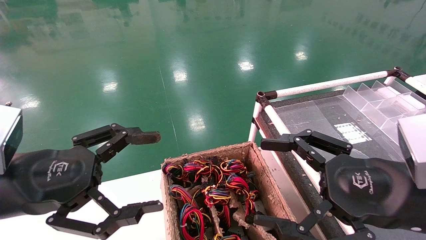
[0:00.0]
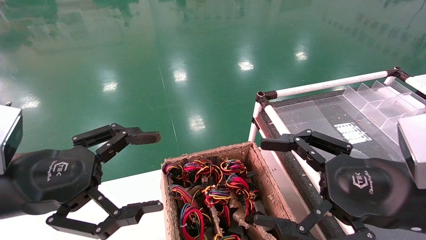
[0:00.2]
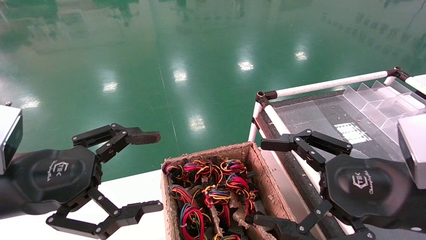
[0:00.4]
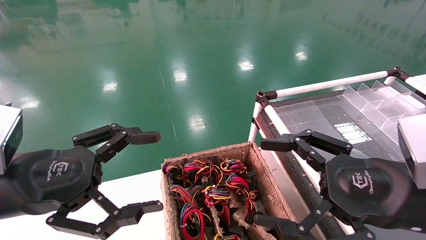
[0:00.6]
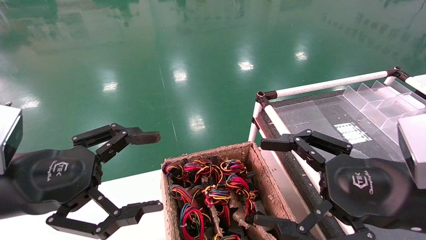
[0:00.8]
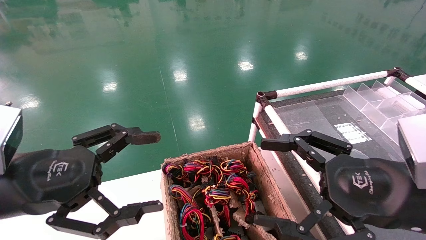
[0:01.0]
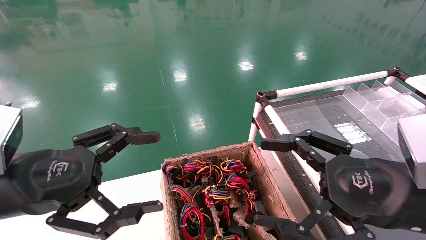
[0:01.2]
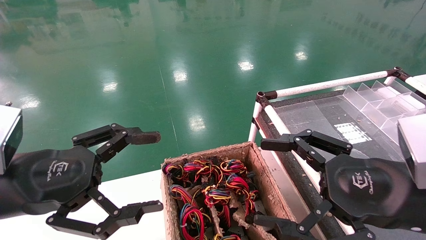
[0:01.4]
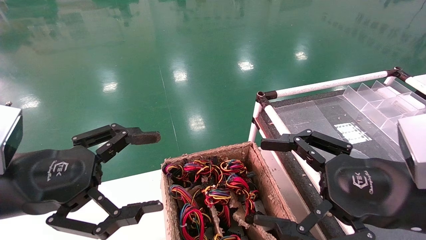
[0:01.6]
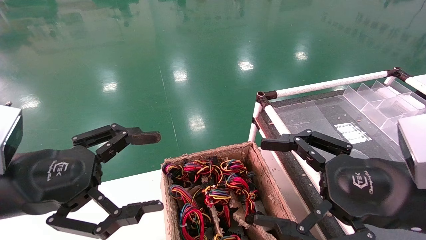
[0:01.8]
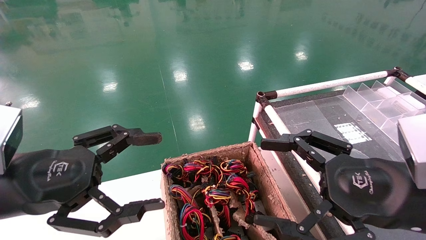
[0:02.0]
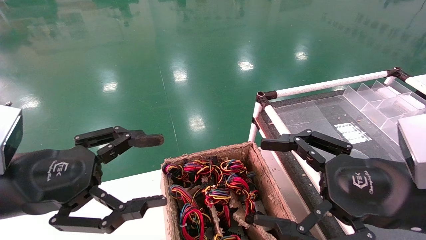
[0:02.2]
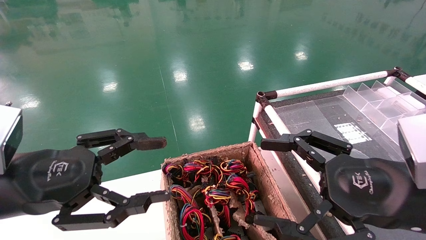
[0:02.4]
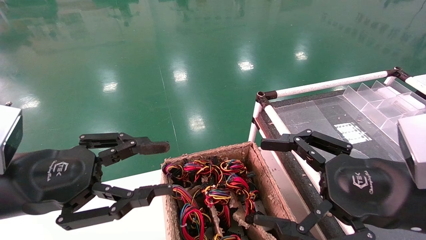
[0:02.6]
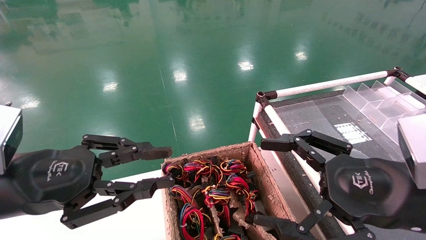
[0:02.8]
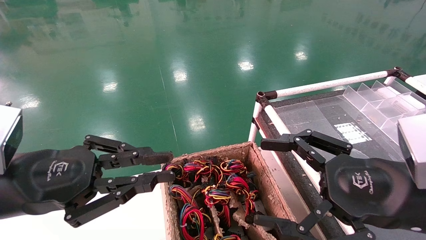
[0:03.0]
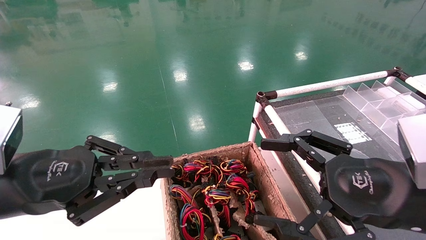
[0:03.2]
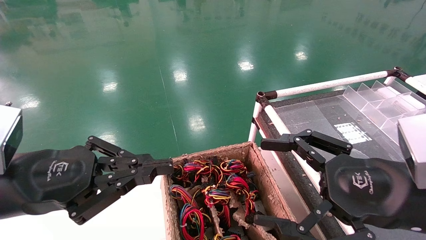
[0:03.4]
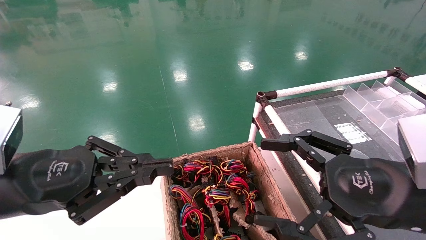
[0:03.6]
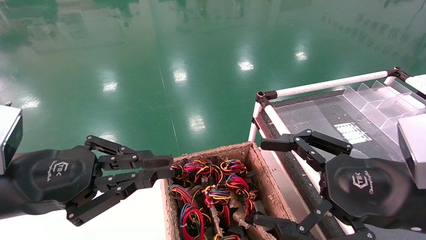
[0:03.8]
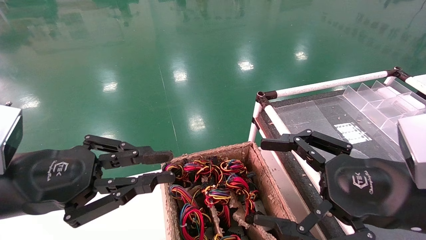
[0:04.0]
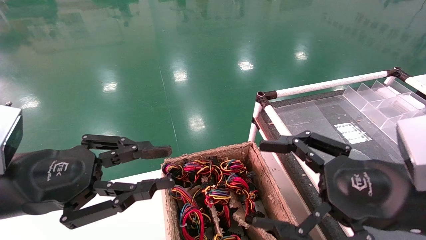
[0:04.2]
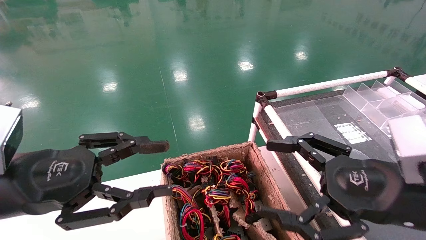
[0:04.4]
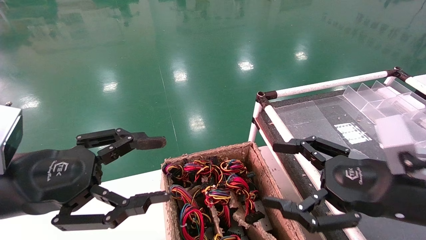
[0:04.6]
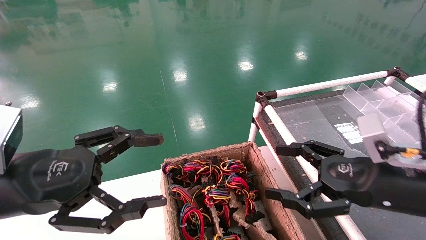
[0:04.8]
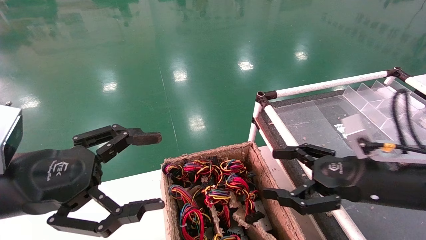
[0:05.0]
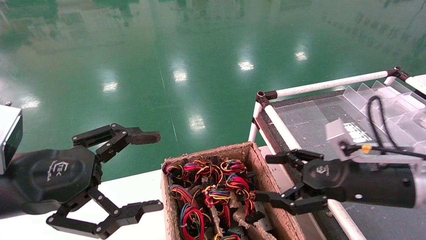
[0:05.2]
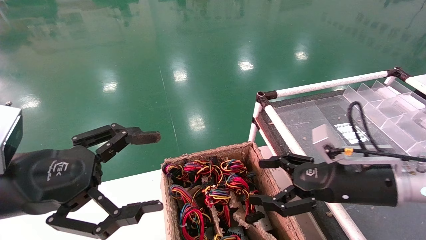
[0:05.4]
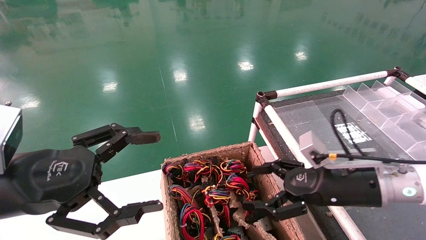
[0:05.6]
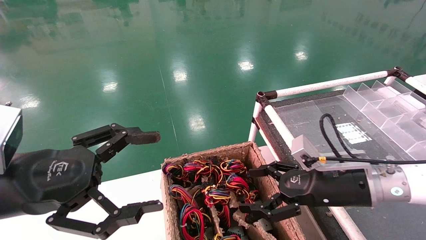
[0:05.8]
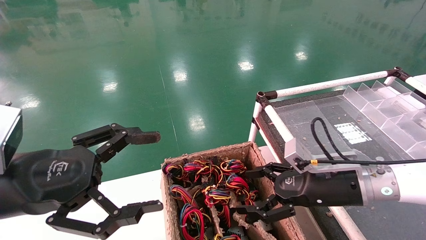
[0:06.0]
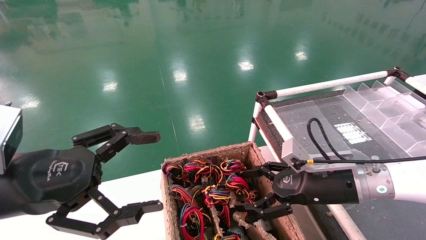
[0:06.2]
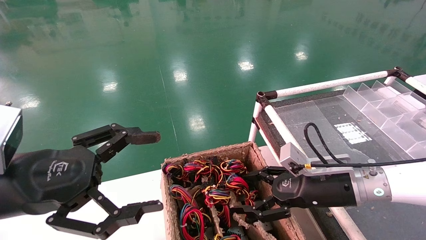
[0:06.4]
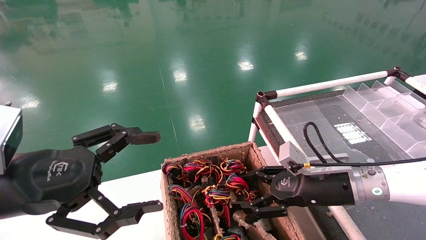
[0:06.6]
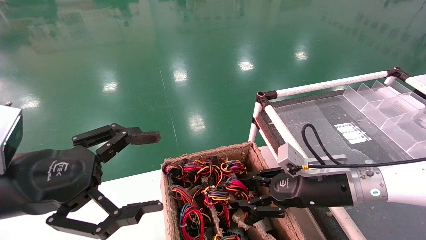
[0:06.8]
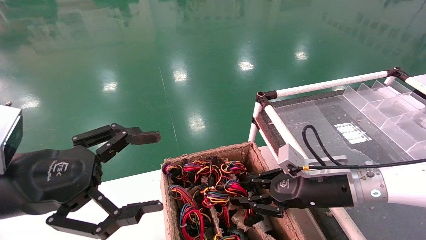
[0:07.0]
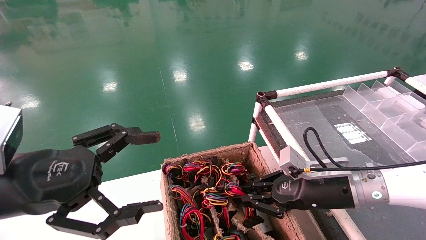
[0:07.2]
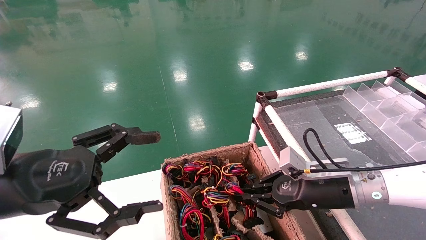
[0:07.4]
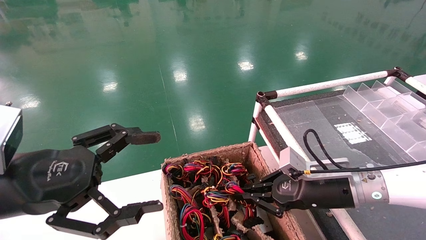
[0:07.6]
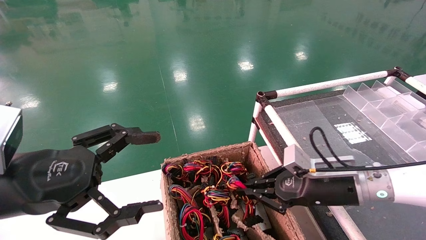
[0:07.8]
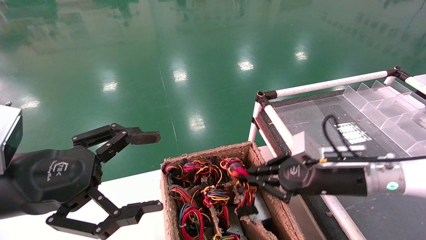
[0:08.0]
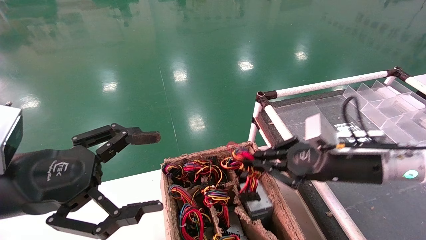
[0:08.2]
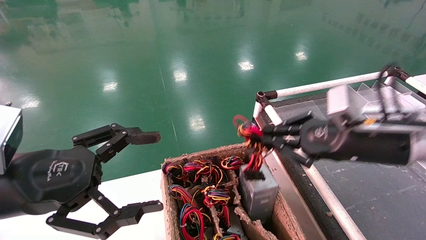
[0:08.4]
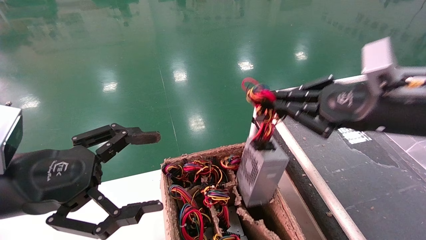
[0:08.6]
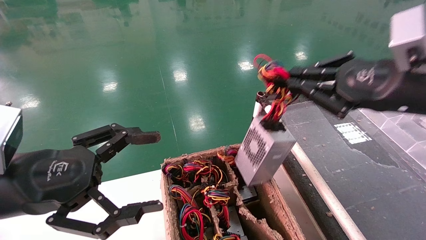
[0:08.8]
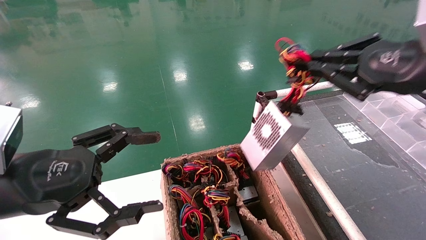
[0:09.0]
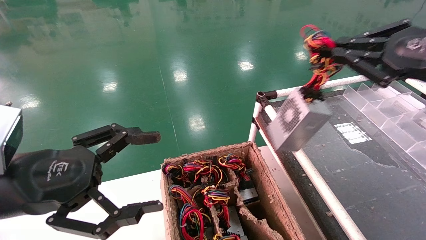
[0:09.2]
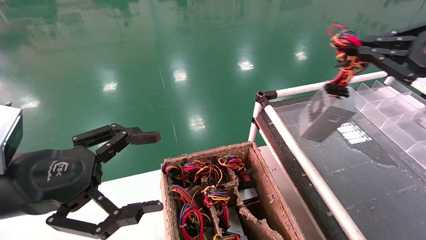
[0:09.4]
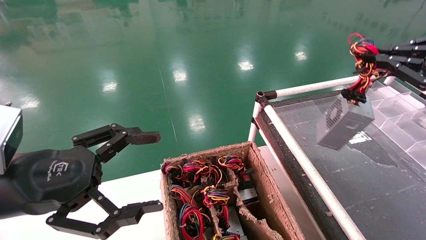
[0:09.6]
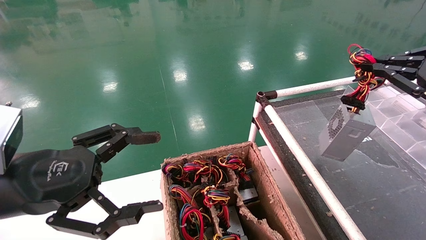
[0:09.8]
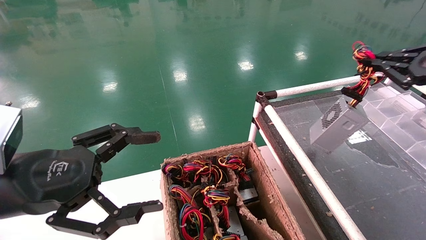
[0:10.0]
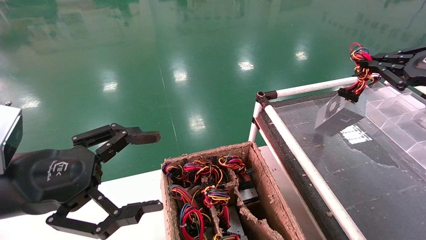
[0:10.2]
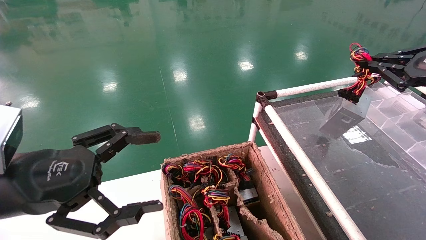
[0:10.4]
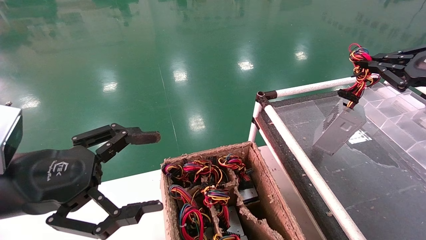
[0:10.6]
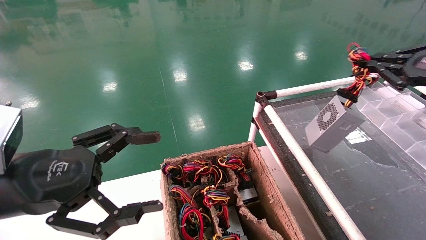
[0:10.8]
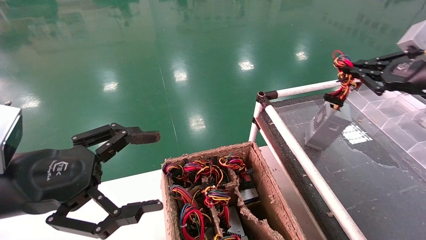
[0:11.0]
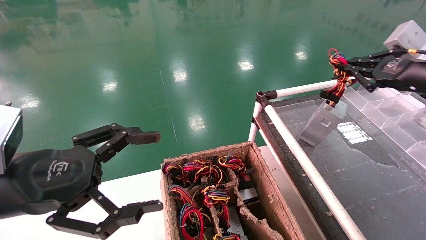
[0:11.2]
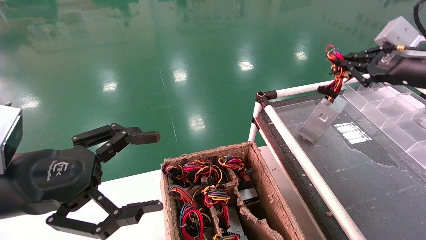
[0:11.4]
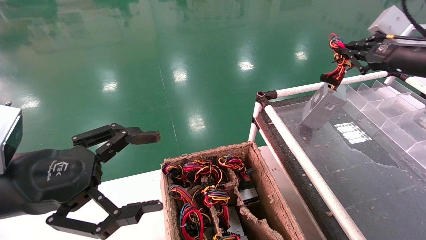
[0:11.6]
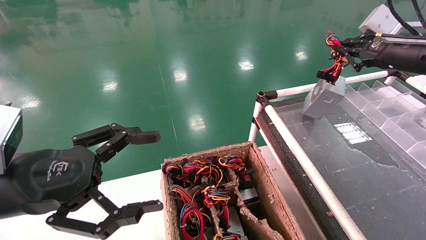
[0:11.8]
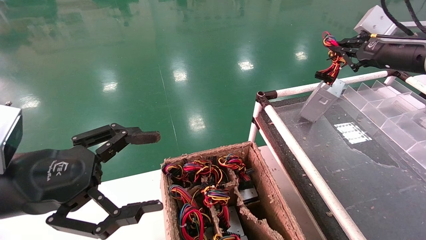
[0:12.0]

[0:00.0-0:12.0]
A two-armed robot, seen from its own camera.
Step, 0:03.4 to 0:07.0: Grab and lift the power supply from the large box.
0:00.0 to 0:01.6: Both grippers stay about where they are.
0:01.6 to 0:03.0: The left gripper closes its fingers.
0:03.0 to 0:04.4: There are only small adjustments of the grippers.
0:04.4 to 0:06.0: The right gripper is displaced forward and downward by some 15 cm, while the left gripper opens its fingers.
0:06.0 to 0:07.6: The right gripper closes up.
0:07.6 to 0:09.0: The right gripper is displaced upward and to the right by about 25 cm.
0:09.0 to 0:10.4: The right gripper goes roughly 10 cm to the right.
0:10.4 to 0:12.0: The right gripper travels forward and to the left by approximately 10 cm.

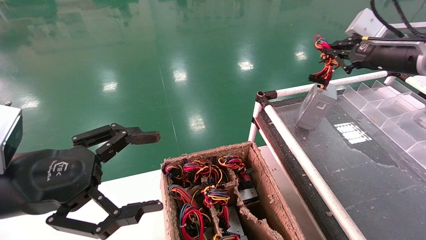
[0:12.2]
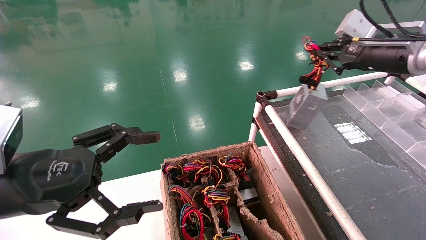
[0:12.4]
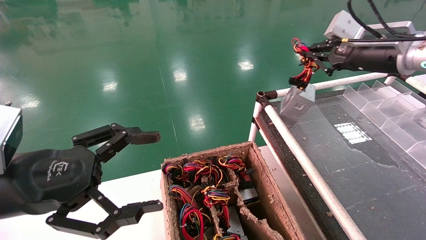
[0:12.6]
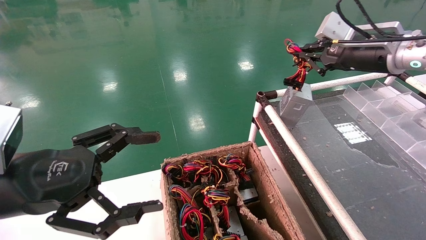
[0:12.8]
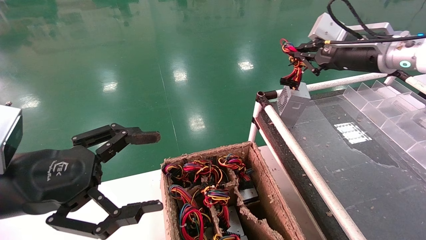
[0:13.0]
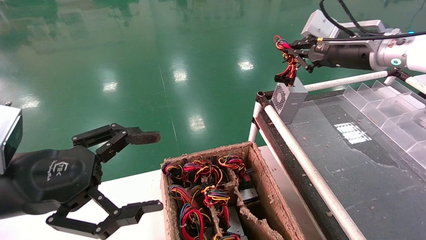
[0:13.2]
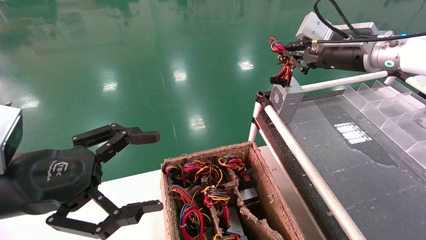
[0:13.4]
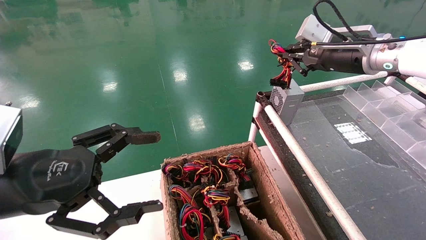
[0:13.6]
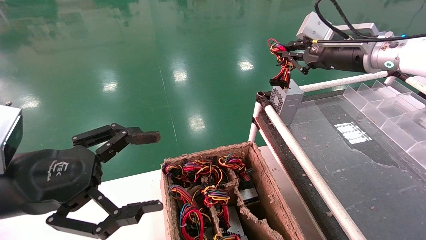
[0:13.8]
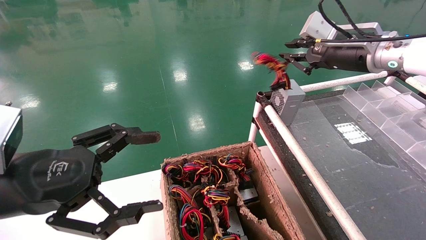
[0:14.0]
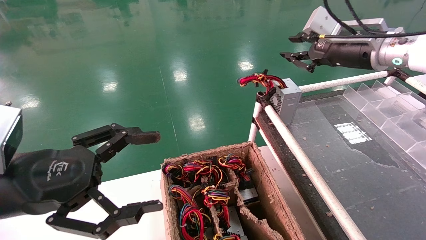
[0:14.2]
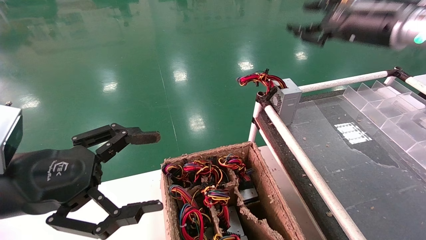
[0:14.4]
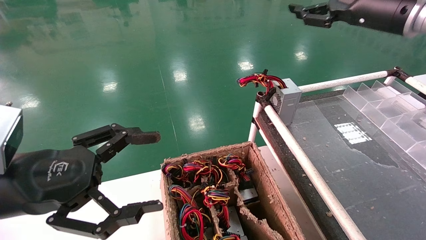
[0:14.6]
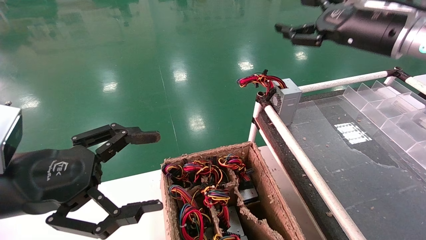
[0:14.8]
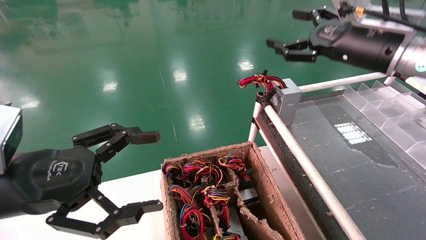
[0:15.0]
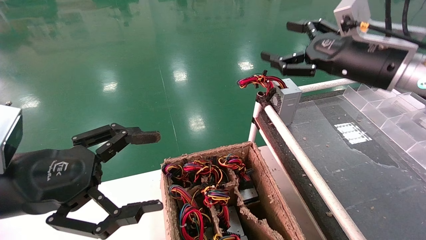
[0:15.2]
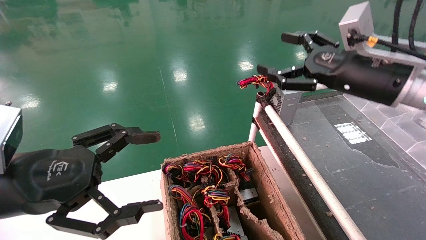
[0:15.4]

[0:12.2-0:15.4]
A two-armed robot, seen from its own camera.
0:12.2 to 0:13.8: The right gripper heads to the left, covering some 10 cm.
0:13.8 to 0:15.4: The right gripper goes about 10 cm backward, and opens its fingers.

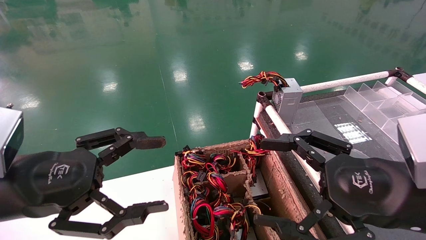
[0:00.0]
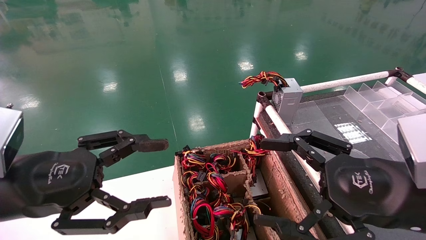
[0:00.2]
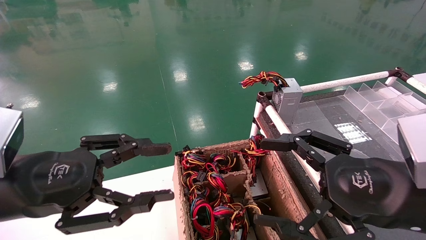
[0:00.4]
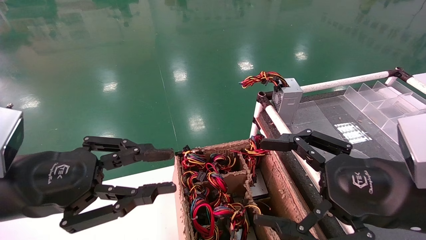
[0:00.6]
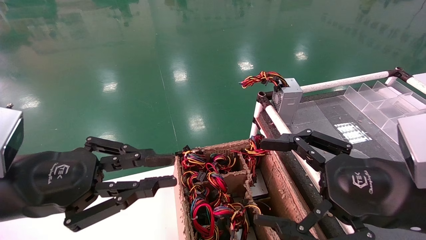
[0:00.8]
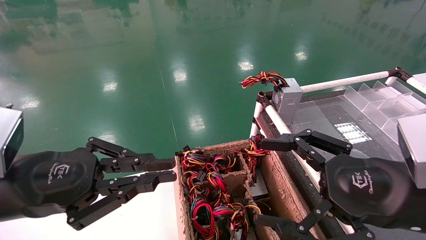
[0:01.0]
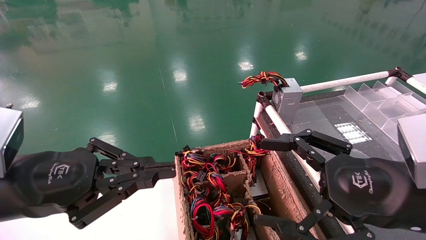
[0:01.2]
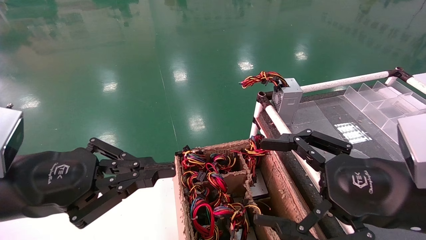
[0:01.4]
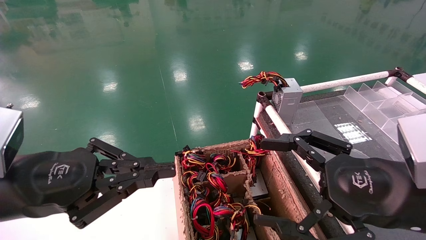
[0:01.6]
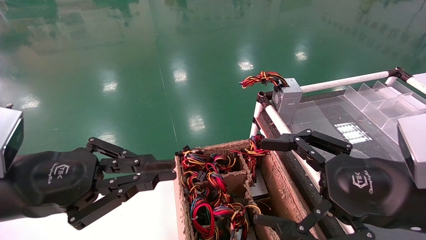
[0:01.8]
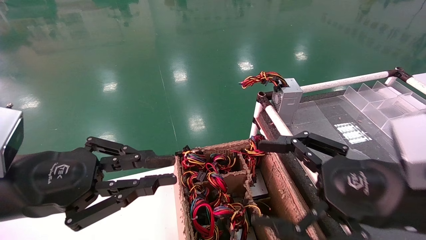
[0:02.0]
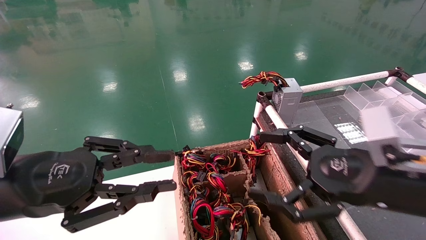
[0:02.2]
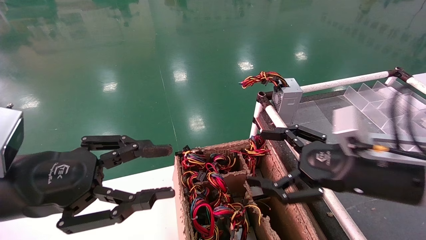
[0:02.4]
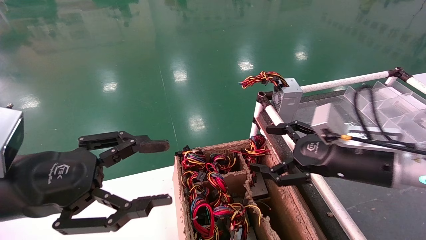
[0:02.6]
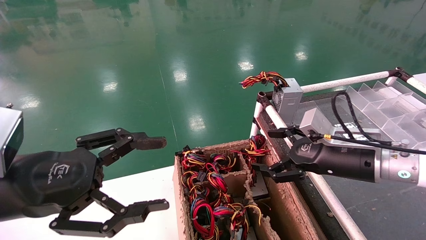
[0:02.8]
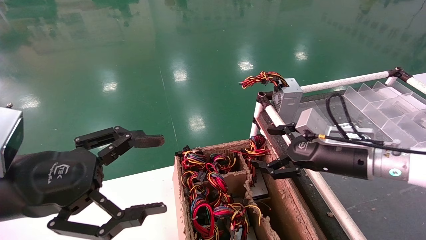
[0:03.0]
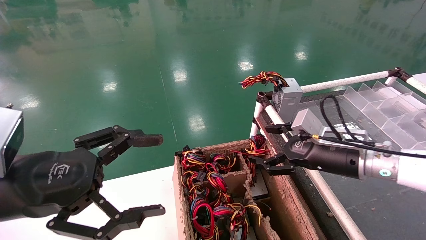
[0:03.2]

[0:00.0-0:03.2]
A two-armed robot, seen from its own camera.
0:00.0 to 0:01.6: The left gripper closes up.
0:01.6 to 0:03.2: The left gripper opens; the right gripper goes approximately 15 cm forward.
